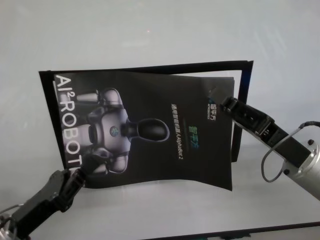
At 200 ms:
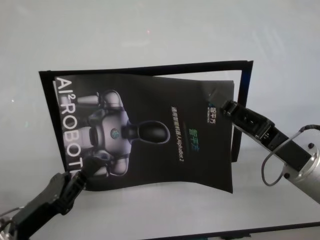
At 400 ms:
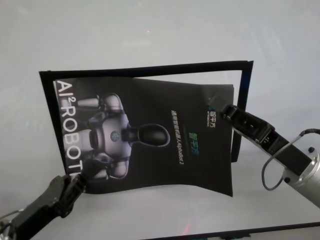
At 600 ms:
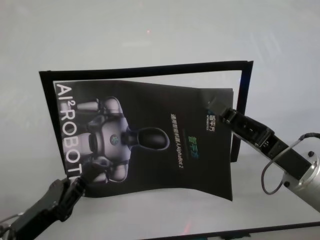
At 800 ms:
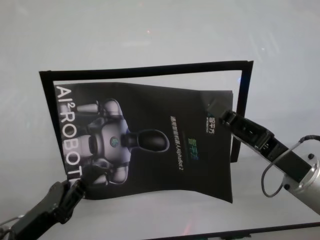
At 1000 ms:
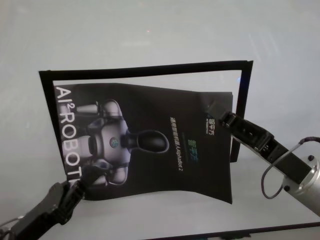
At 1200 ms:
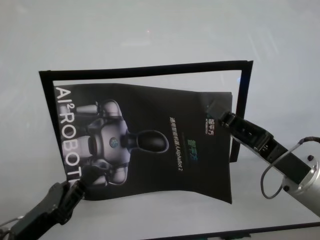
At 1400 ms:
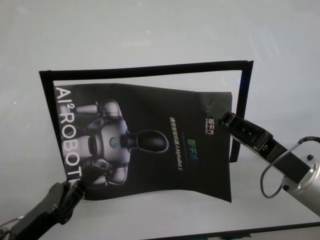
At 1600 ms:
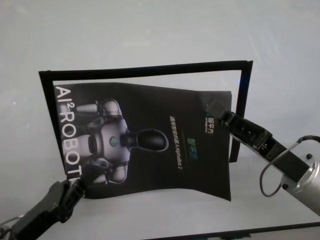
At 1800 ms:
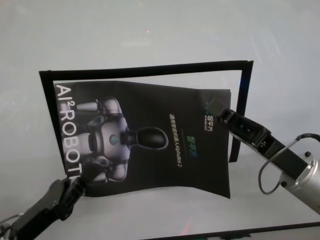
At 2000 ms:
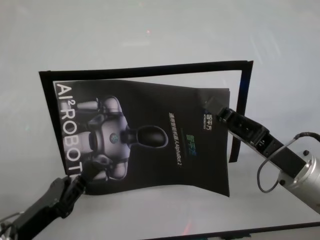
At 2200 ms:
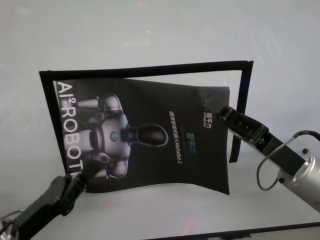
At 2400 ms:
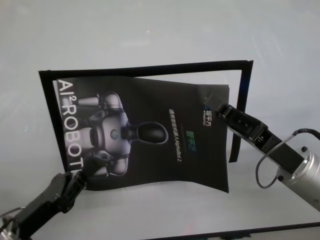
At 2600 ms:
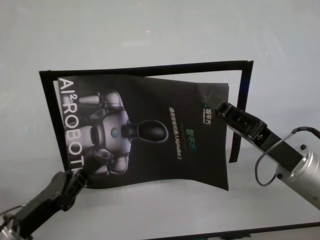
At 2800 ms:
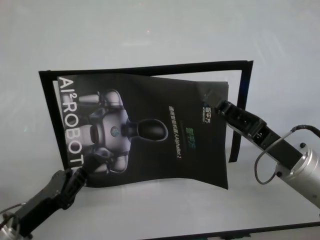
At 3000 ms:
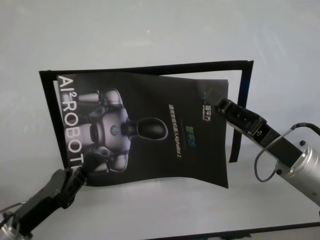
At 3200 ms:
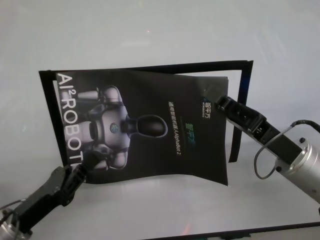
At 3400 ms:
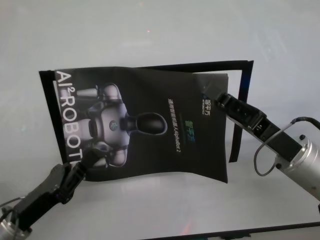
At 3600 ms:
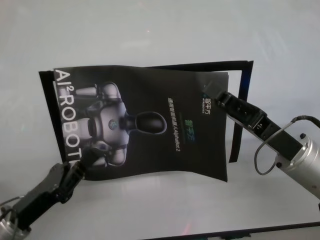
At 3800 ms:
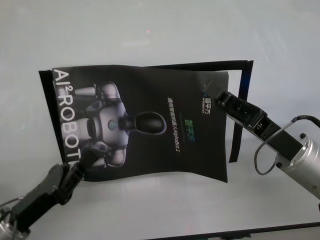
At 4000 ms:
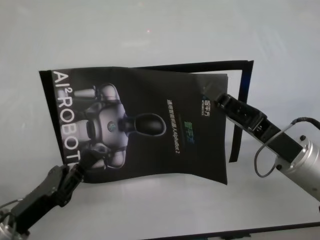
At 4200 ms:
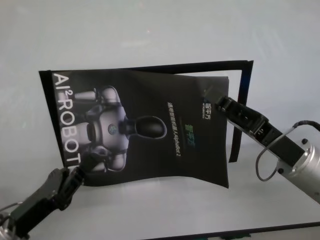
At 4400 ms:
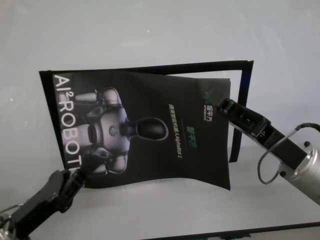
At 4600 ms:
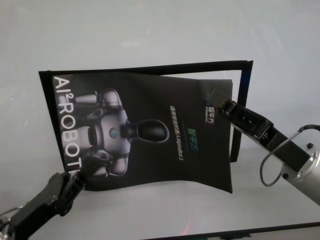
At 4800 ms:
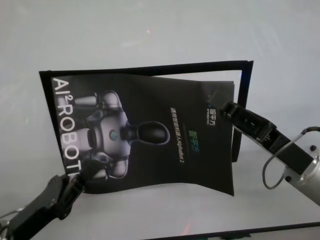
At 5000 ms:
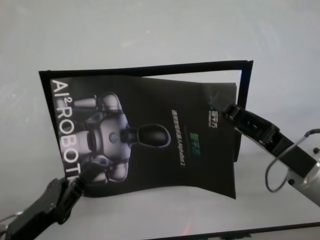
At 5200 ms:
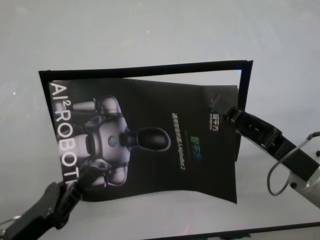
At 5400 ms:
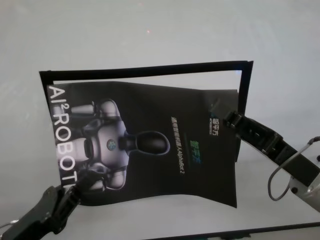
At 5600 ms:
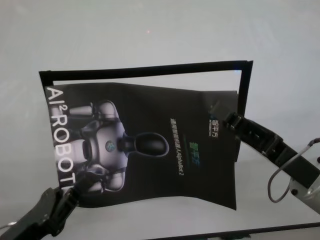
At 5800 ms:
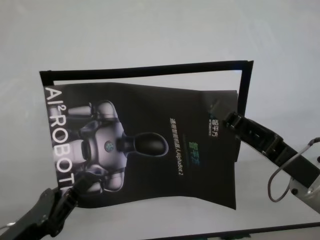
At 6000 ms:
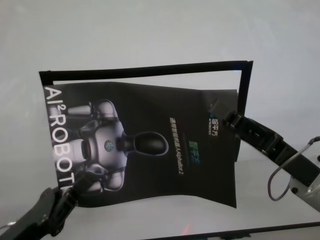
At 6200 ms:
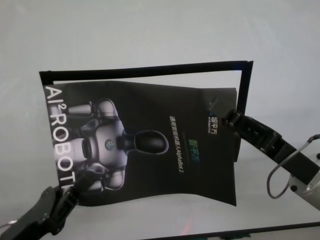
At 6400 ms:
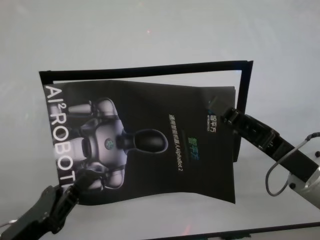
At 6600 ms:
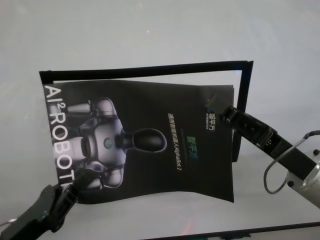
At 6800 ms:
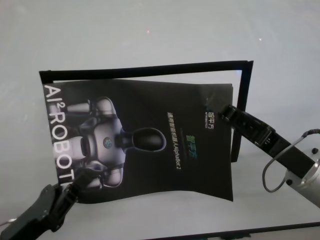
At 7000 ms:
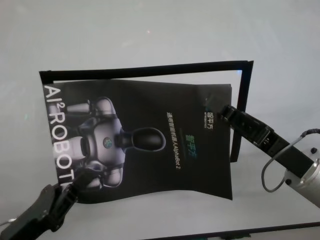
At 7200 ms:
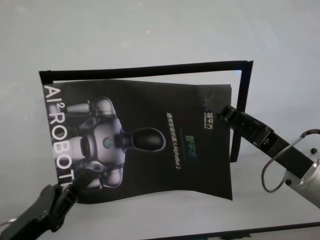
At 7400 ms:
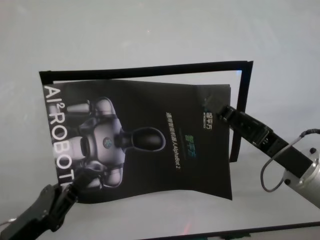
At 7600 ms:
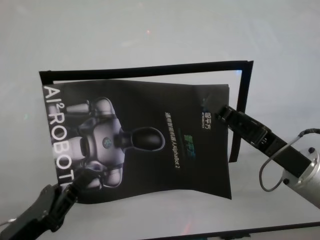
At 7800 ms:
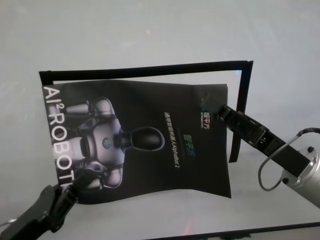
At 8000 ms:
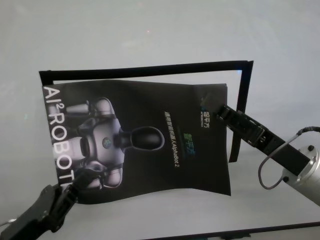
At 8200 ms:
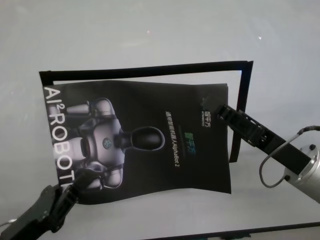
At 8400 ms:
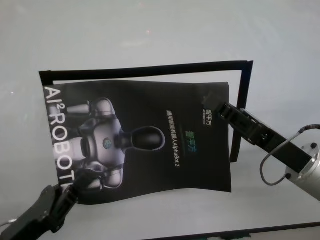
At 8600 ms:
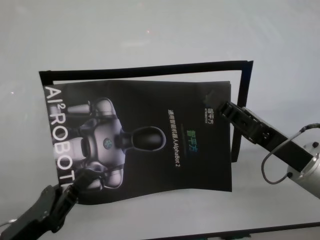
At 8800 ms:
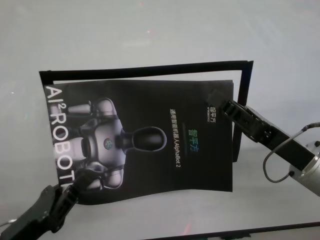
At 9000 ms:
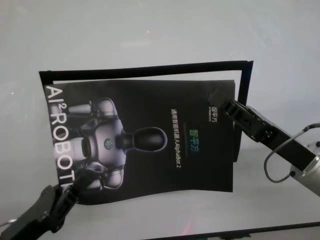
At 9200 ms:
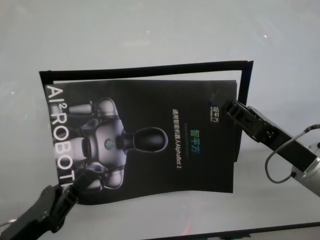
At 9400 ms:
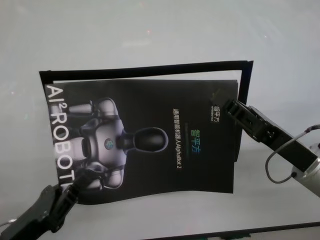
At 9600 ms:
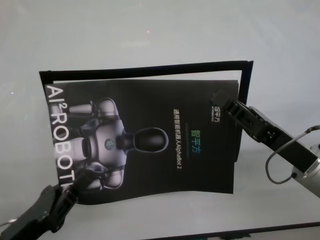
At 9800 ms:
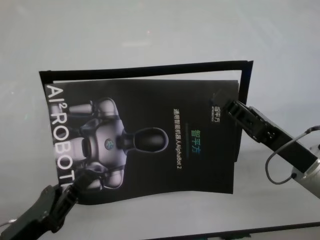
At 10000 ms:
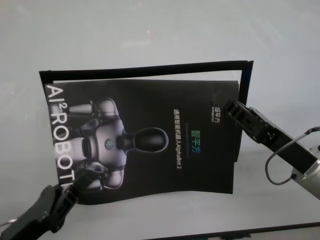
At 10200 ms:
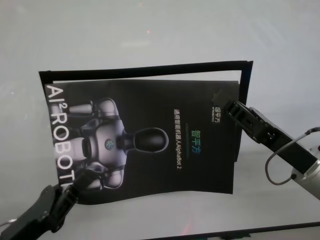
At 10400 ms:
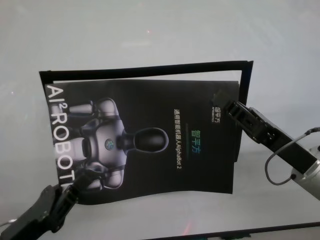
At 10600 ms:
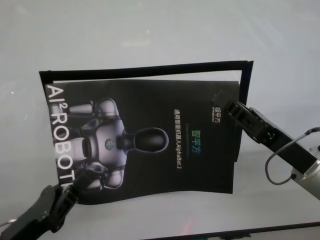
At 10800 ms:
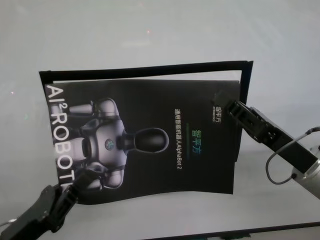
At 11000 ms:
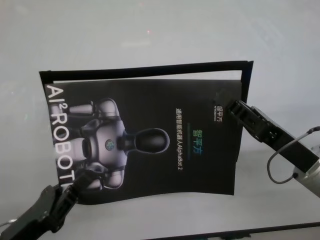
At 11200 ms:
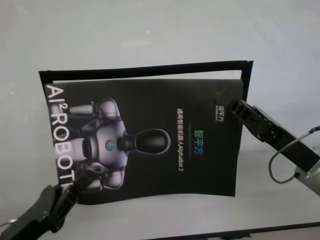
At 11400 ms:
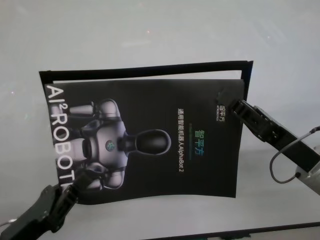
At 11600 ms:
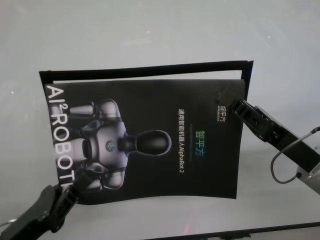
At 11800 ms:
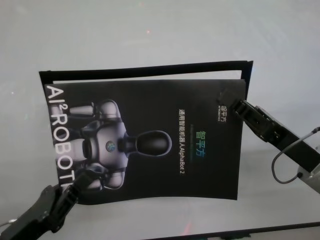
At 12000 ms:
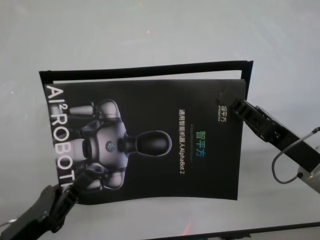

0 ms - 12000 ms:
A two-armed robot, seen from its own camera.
Task of the whole recording: stick the poster on the table by hand.
Step, 0 ms - 10800 ms: Stick the advertisement in the top-right corner area with both grippers.
